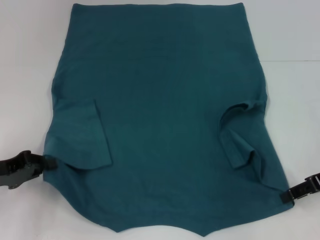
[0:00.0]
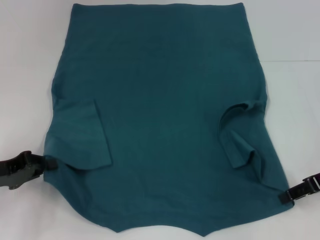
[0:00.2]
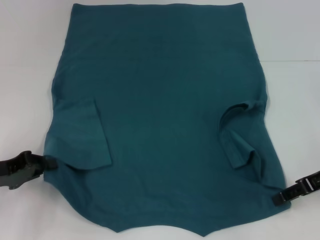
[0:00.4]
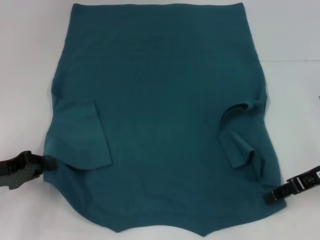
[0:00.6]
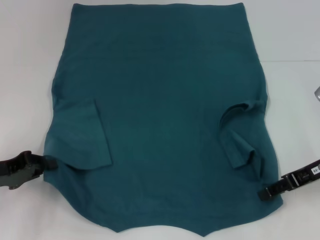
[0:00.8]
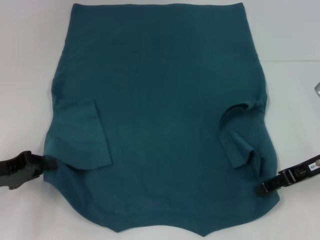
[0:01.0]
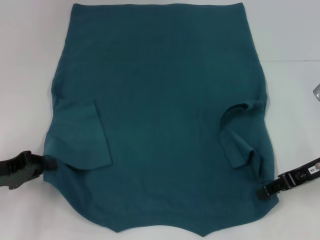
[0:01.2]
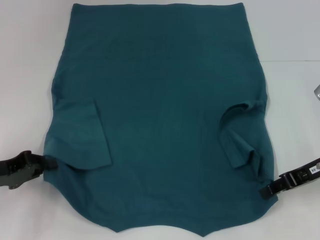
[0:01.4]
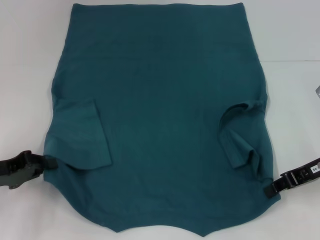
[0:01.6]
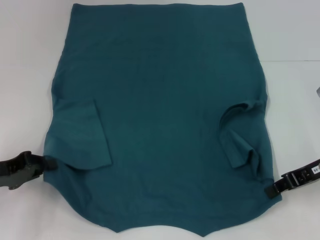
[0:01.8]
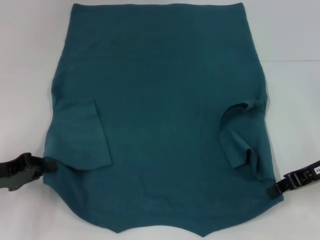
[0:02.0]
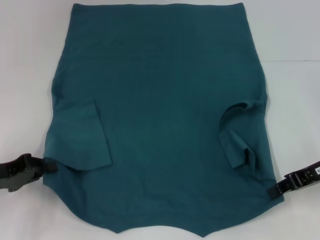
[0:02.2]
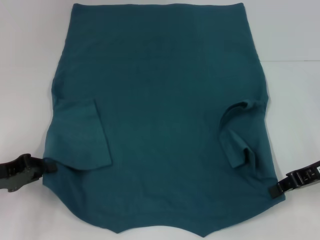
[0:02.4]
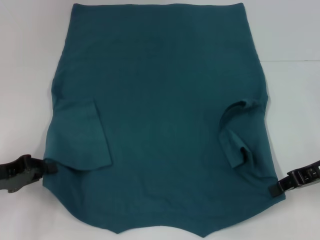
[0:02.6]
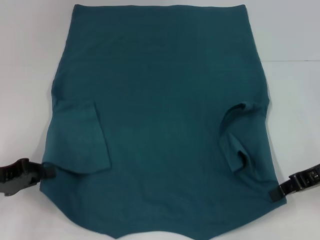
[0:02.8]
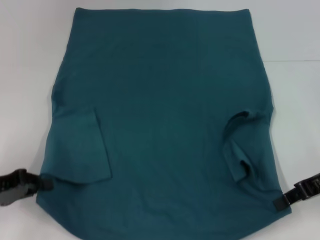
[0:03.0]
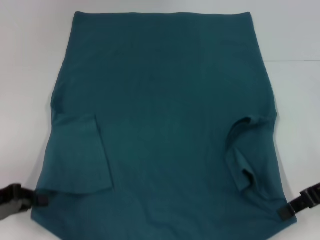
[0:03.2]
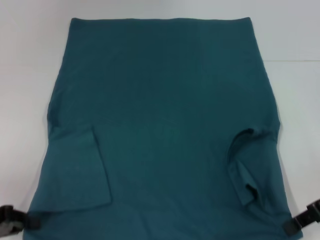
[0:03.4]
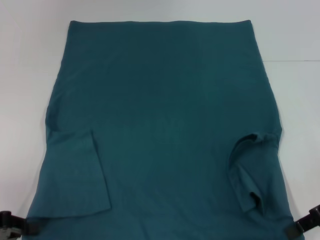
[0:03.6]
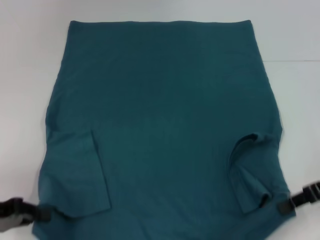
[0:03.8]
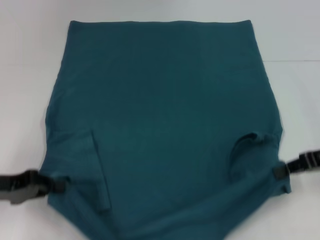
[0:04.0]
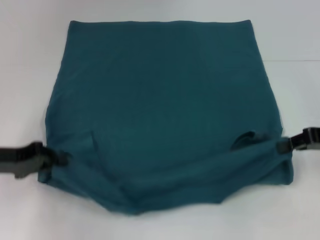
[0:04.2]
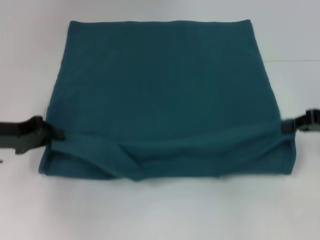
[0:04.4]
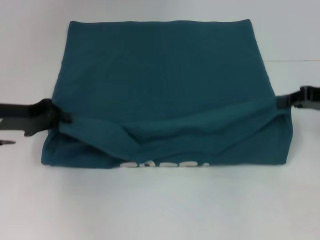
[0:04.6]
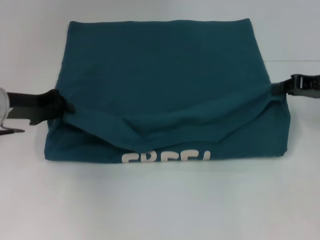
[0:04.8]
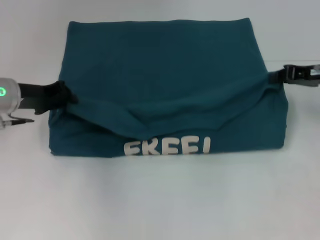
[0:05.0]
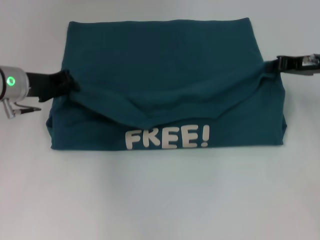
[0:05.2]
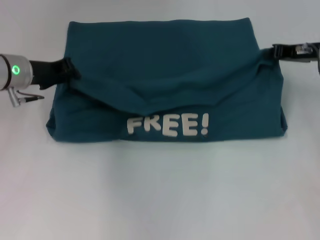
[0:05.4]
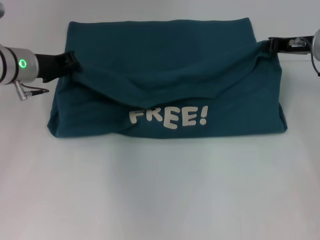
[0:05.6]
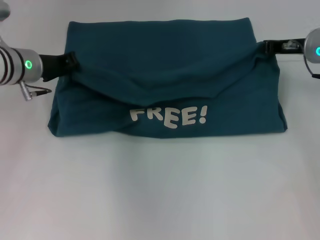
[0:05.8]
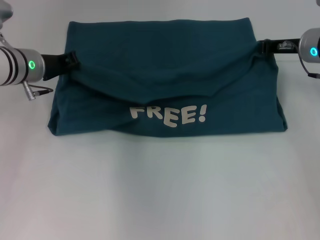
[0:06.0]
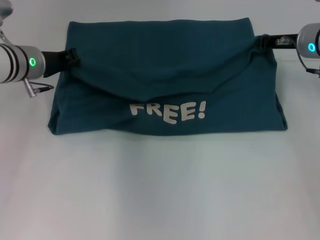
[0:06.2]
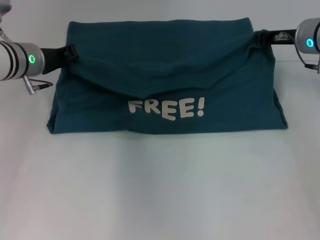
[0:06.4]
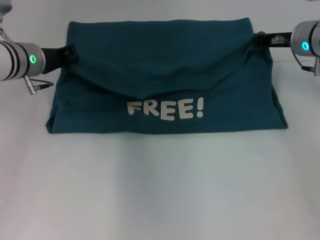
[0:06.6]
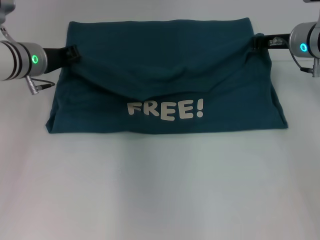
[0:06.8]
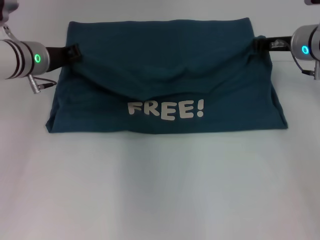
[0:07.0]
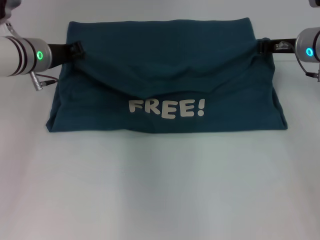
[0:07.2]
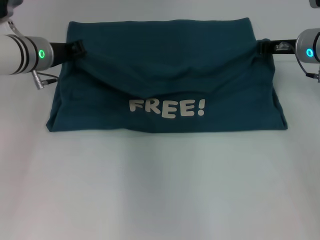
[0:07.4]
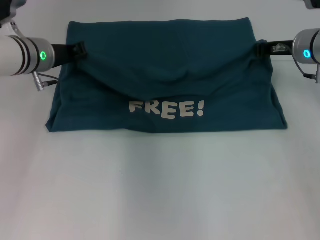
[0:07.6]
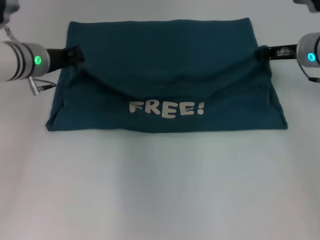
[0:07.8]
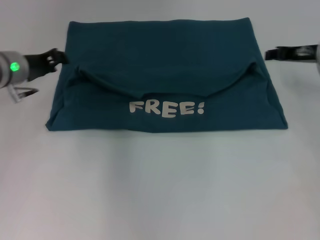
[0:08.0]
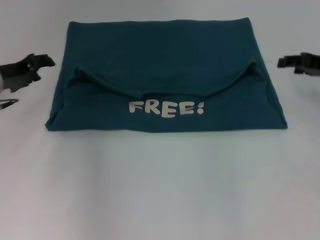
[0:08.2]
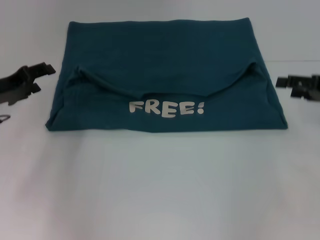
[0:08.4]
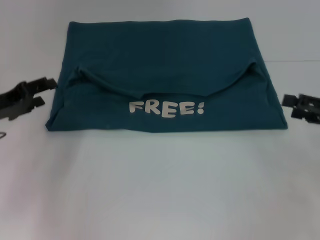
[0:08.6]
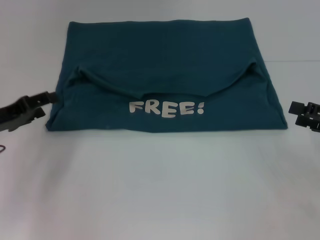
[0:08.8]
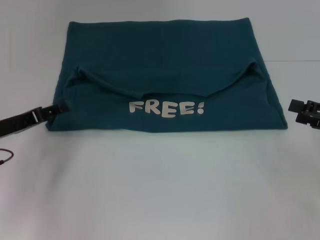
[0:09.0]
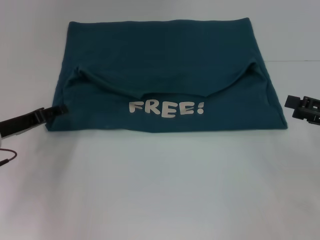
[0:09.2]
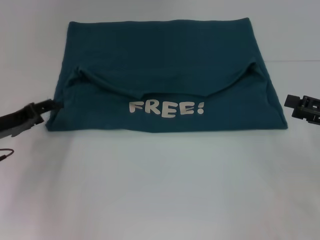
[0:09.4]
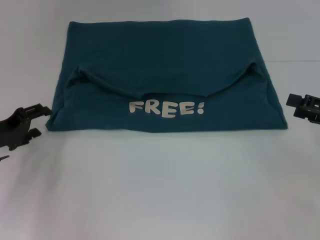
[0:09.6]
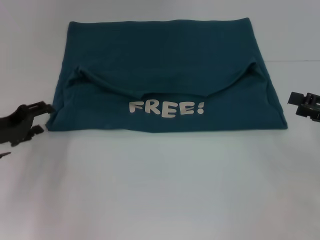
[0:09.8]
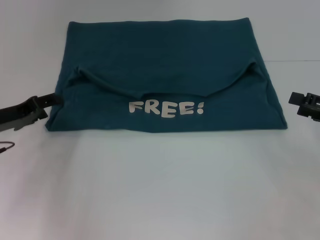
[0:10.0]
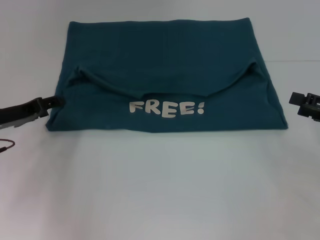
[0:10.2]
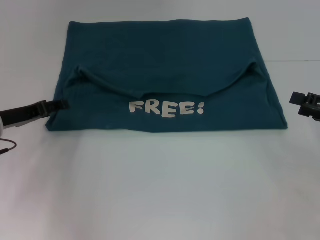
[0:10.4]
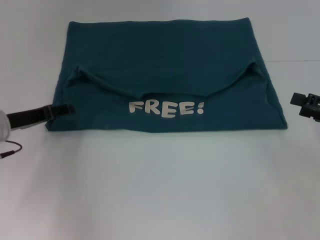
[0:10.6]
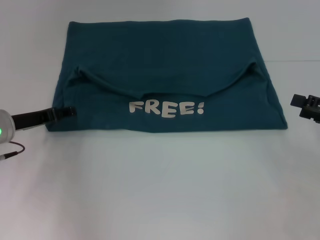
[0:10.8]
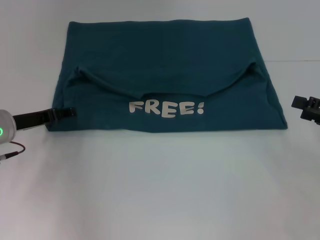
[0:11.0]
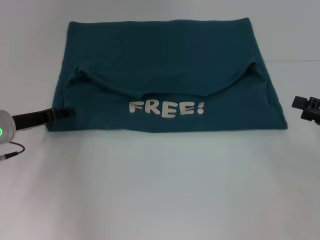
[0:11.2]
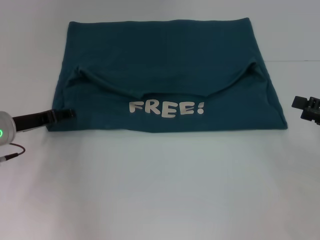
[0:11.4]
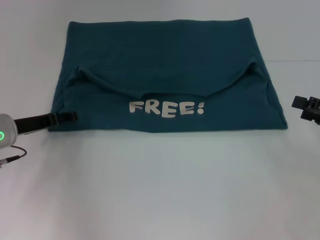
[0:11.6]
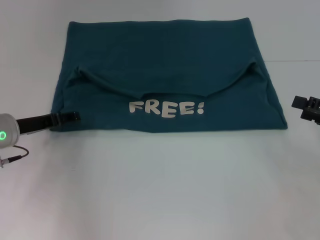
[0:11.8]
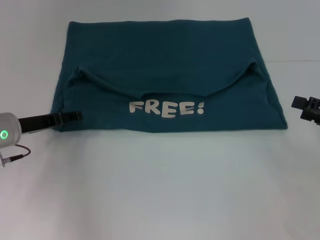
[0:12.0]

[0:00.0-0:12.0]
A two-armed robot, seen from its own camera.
Step, 0.0 to 2.2 s: Grab the bottom right corner with your right hand.
Step, 2.4 to 8.0 s: Fold the clothes to the left.
Step, 2.4 to 8.0 s: Fold the clothes to the right.
0.0 to 3.0 s: The grippers stay close to where they were, moving slightly.
3.0 to 4.4 s: The right gripper ends up roughly 5 cm from where it was. The left gripper heads forward, covering some 5 cm.
4.4 to 6.0 s: The left gripper shifts about 15 cm forward and to the right. Meanwhile the right gripper travels forward and to the left by some 15 cm.
6.0 to 7.6 s: The grippers stay close to where they were, moving slightly.
7.6 to 9.0 s: The left gripper moves backward, to the left and downward, approximately 15 cm, and opens up, while the right gripper is displaced backward and to the right by some 20 cm, and opens its fingers.
10.4 to 12.0 s: There are only small adjustments of the grippers.

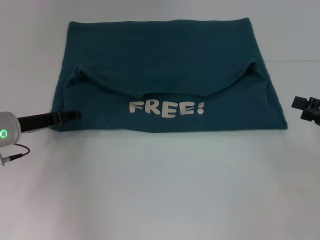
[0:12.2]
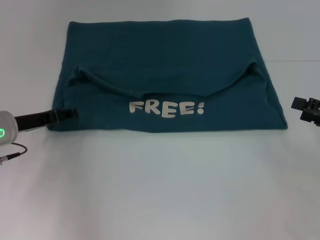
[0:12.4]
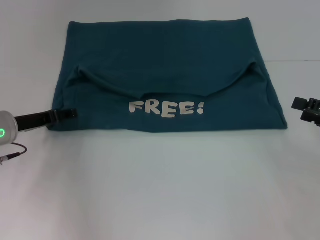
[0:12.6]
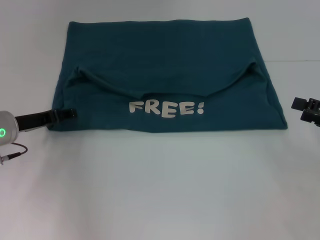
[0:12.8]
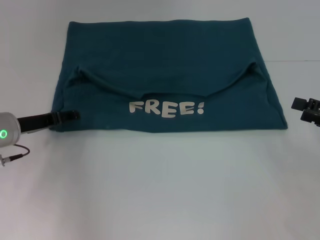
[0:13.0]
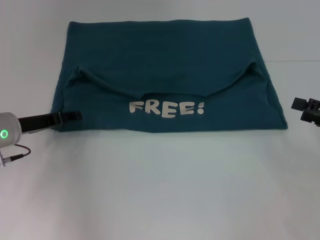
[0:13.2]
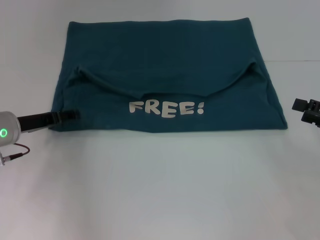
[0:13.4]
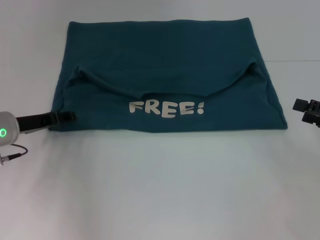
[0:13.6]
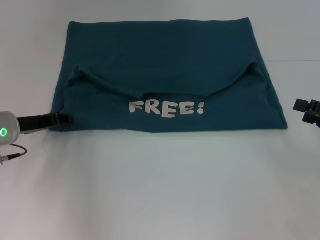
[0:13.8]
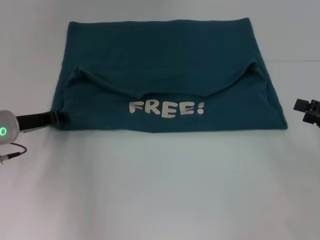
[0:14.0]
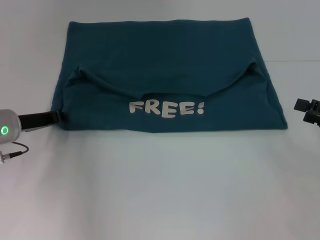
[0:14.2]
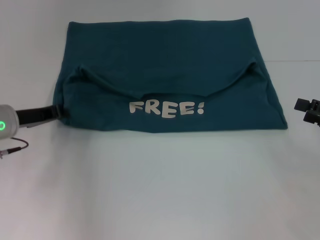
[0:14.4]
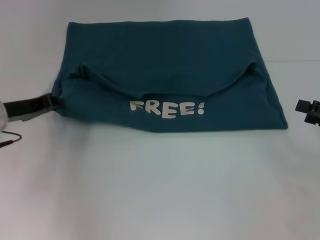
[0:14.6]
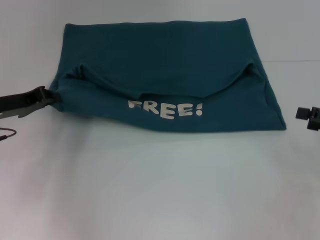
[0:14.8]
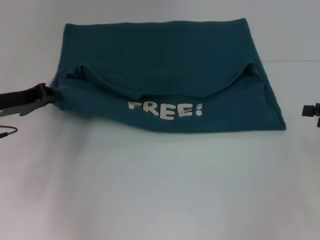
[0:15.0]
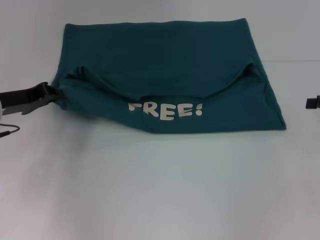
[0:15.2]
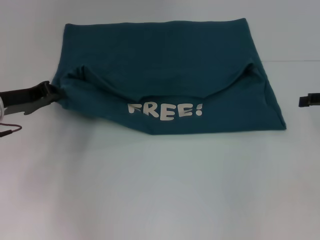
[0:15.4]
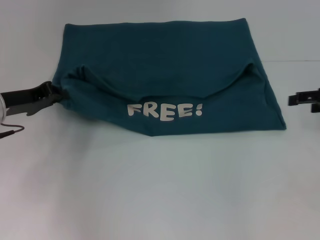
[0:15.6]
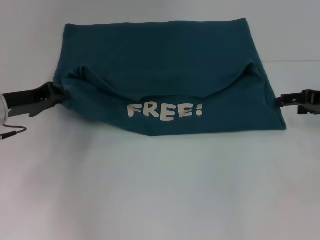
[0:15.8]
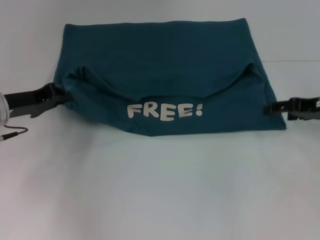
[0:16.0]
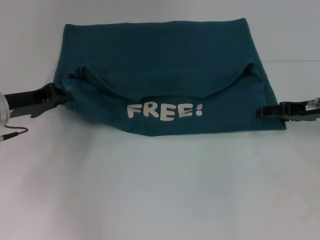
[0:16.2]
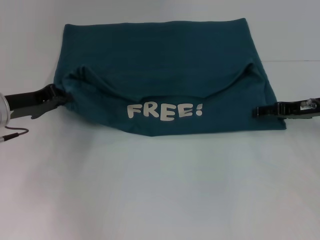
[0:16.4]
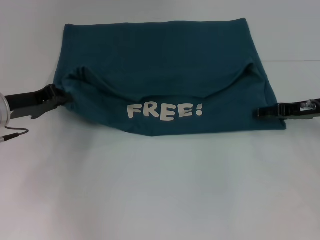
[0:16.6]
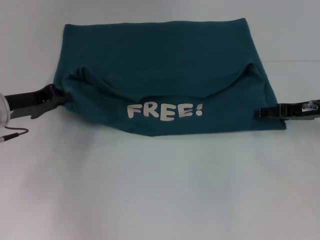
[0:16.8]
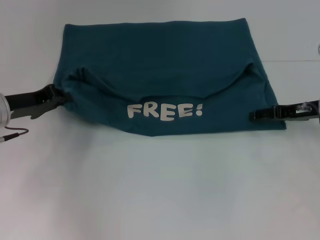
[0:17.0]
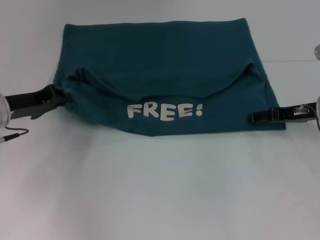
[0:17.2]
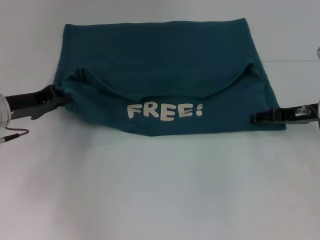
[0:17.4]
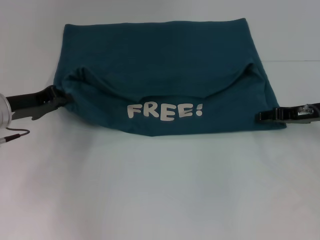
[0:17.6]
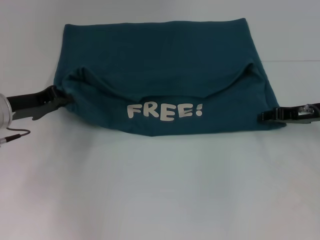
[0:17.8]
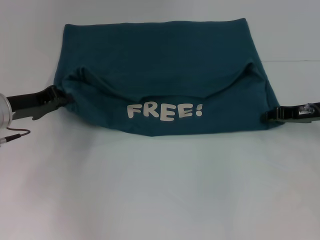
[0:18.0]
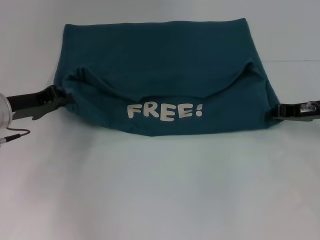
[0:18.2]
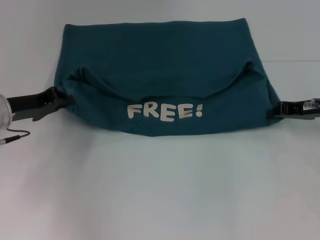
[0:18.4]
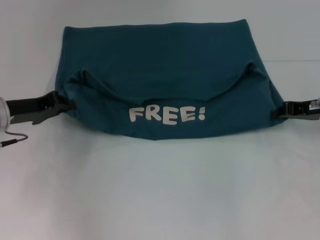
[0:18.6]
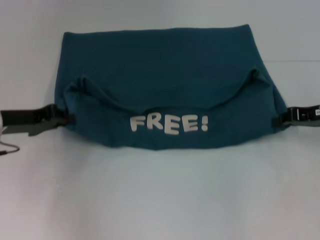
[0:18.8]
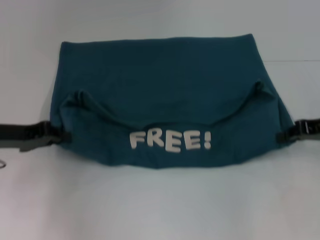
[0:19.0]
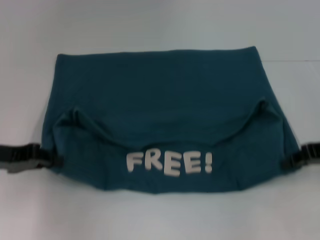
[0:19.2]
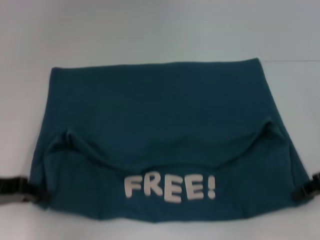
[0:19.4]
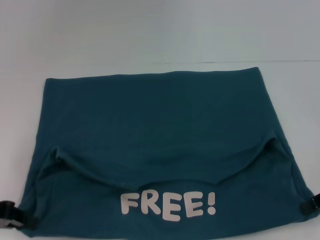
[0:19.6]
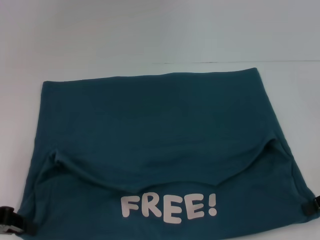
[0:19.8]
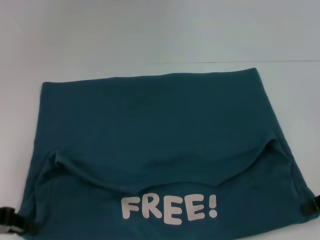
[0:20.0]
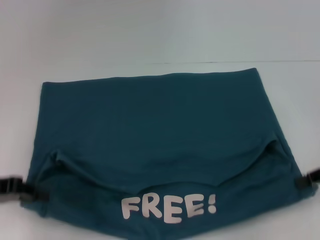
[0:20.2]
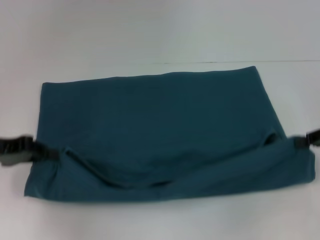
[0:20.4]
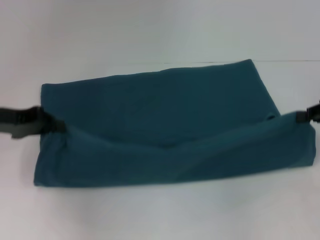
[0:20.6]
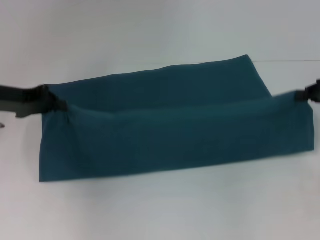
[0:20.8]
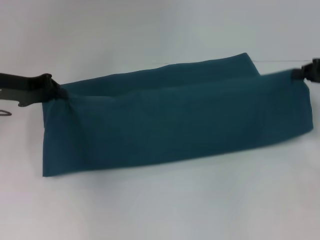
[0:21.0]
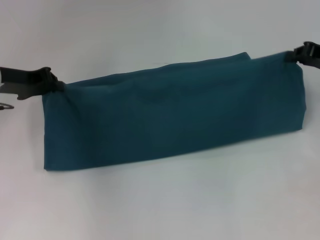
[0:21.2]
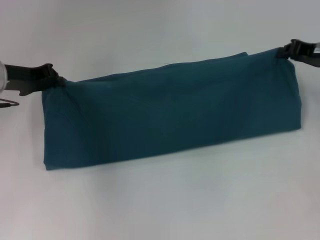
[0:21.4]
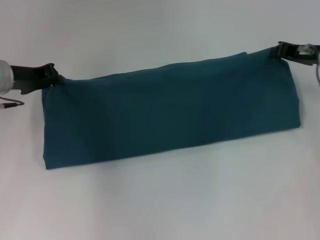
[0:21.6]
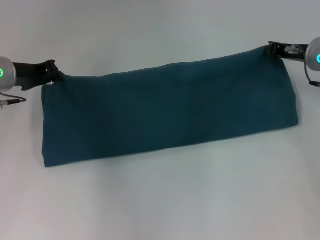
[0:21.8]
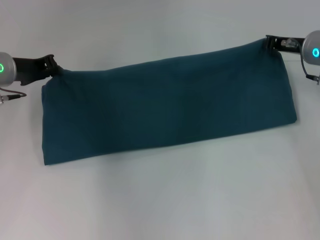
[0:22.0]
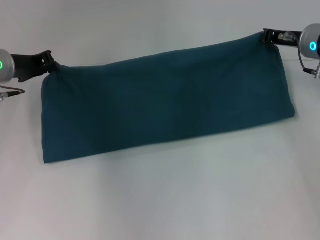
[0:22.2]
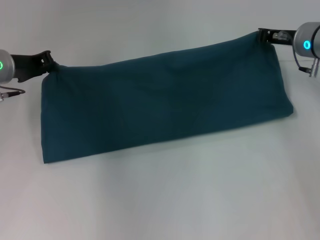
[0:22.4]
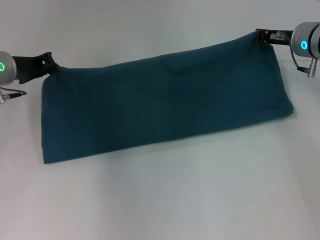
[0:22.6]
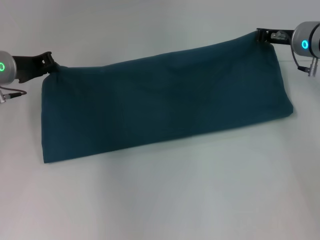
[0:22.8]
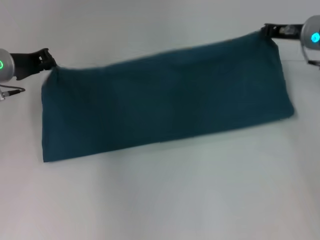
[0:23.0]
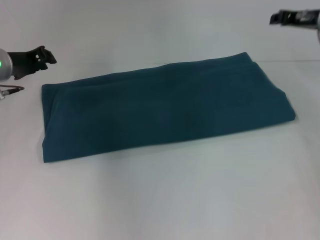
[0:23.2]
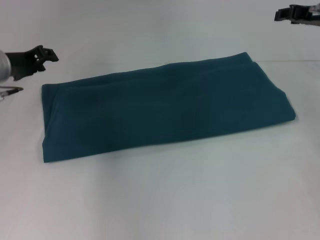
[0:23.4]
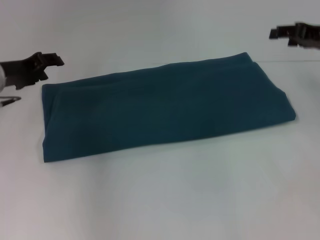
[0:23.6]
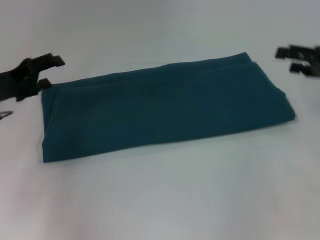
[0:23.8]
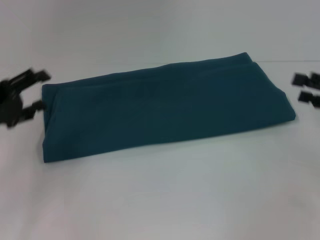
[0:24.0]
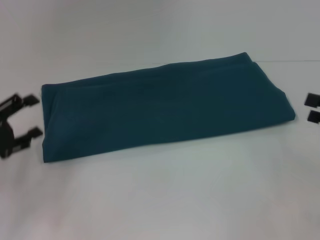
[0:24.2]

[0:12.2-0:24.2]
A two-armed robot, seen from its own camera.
Step, 12.2 to 20.0 s: Pull the clothes with your left hand.
Step, 12.2 to 20.0 s: Pull the clothes with your right hand.
Step, 20.2 to 23.0 s: Fold the clothes to the right.
12.2 to 13.8 s: The two grippers keep their place.
13.8 to 15.2 s: The left gripper closes its fingers, while the right gripper moves forward, some 5 cm.
15.2 to 16.6 s: The right gripper is displaced to the left by about 10 cm.
16.6 to 18.2 s: The right gripper closes up.
18.2 to 19.8 s: The right gripper moves backward, some 10 cm. The left gripper goes some 15 cm backward and to the left.
19.8 to 21.2 s: The two grippers go about 15 cm forward.
21.2 to 22.6 s: The right gripper moves to the left and forward, some 10 cm.
22.6 to 24.2 s: The left gripper moves backward, roughly 15 cm, and opens its fingers; the right gripper heads backward and to the right, covering some 25 cm, and opens up.
